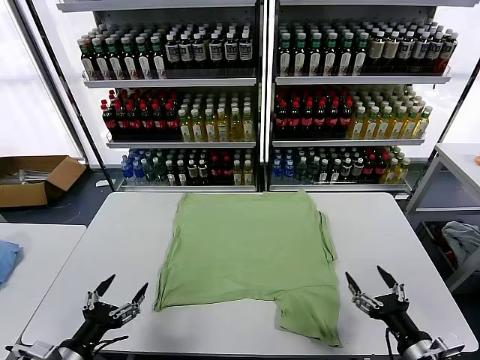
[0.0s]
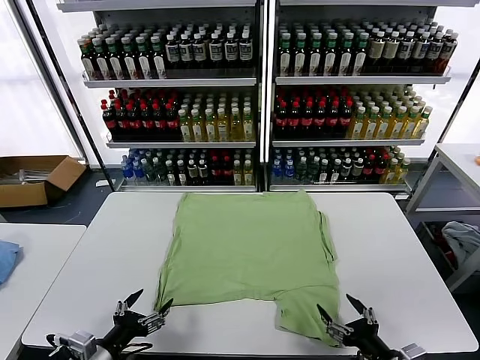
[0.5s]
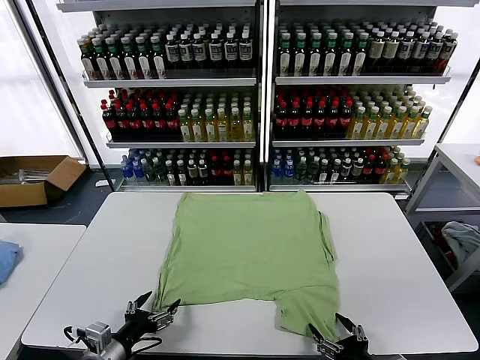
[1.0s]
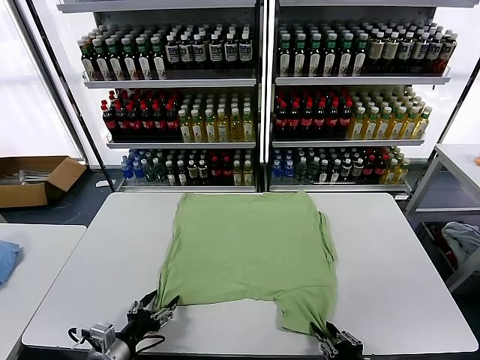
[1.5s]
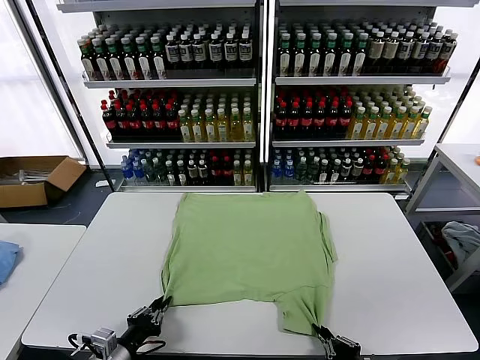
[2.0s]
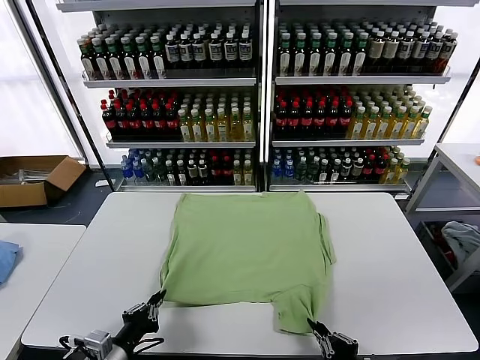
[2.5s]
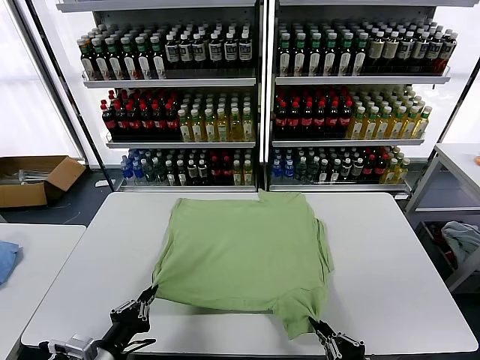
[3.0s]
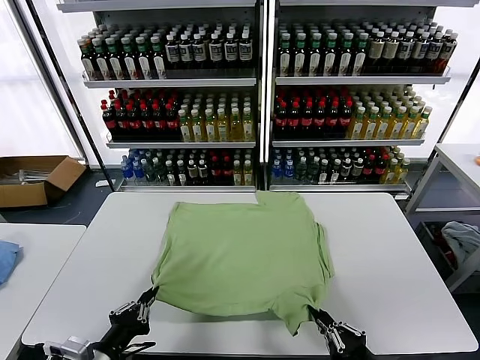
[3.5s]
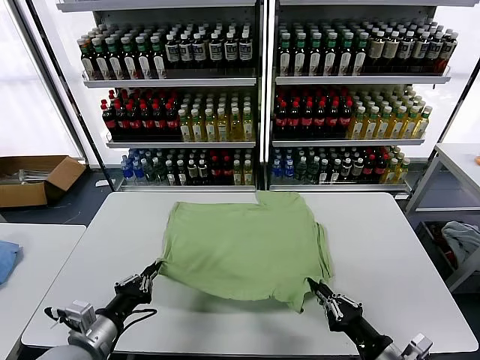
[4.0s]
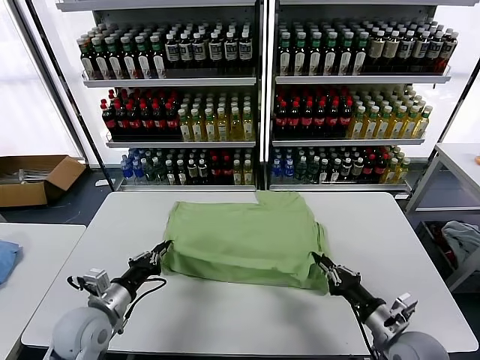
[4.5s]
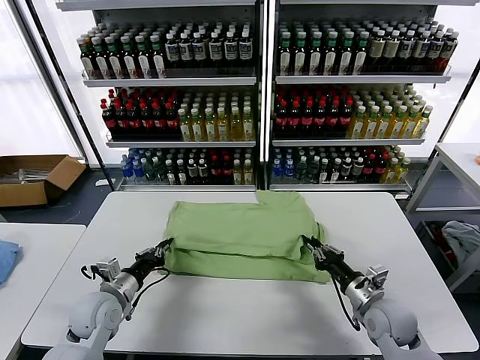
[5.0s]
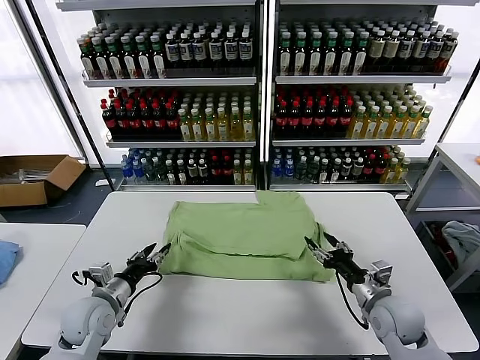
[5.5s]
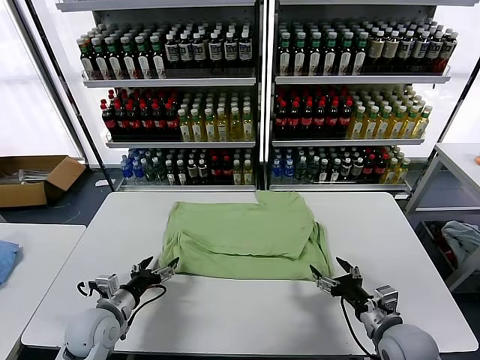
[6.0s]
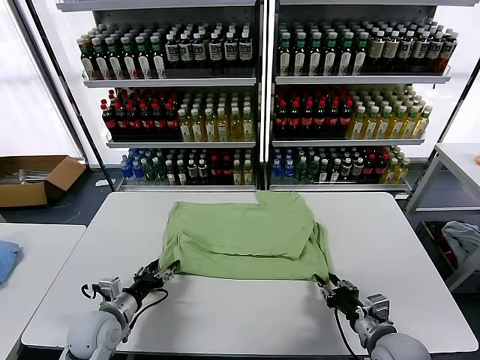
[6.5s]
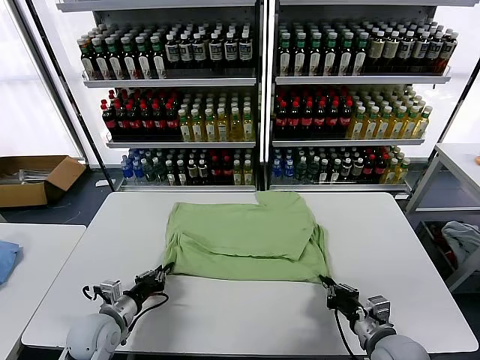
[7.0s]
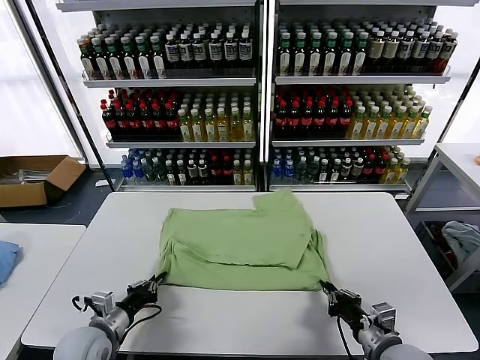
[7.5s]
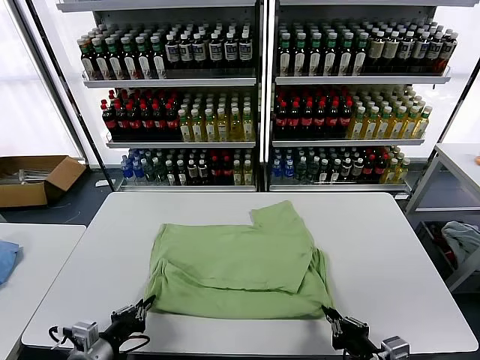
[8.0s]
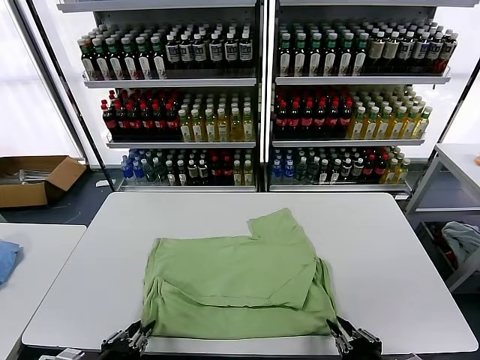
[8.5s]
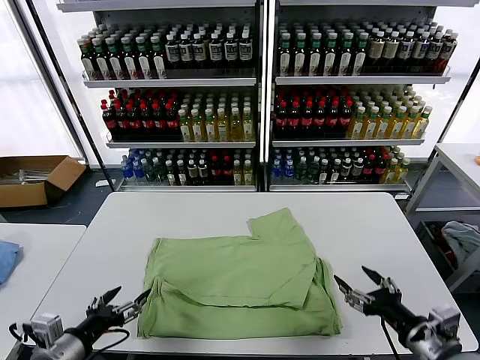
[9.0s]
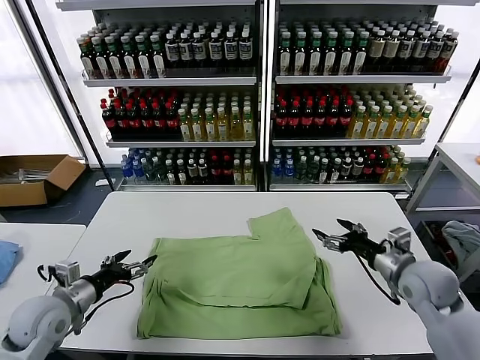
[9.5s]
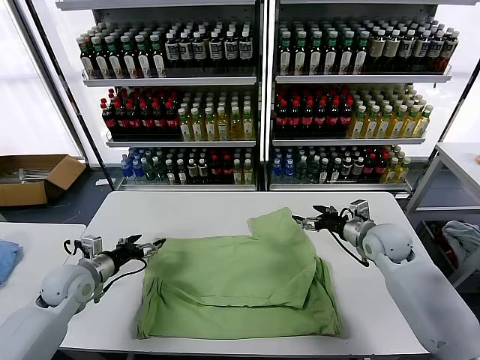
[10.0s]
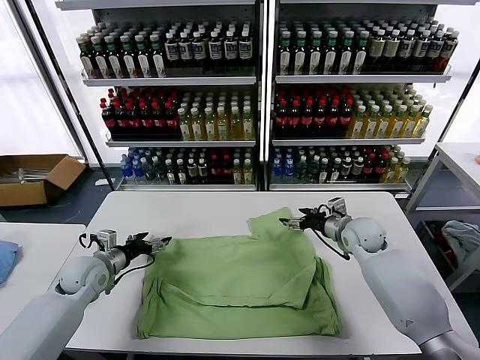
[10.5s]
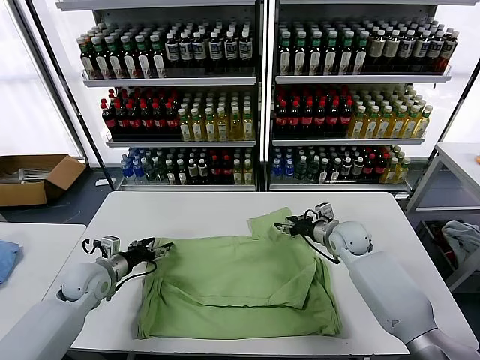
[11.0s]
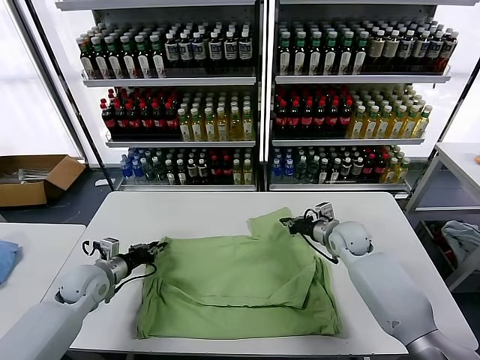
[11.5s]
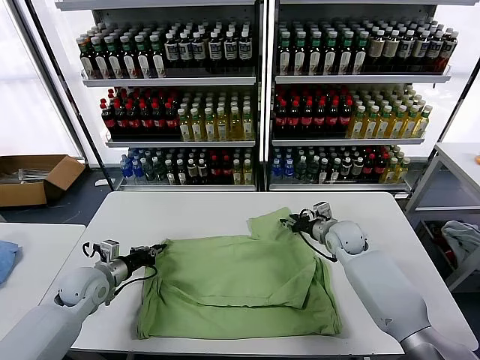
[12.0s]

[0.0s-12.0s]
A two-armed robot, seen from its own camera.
Task of the whole recording: fold and organize the clothes.
Step, 0.0s to 2.0s: use both grippers simultaneously to clamp the lower edge of the clothing fabric.
Step, 2.5s to 5.5s: use both grippers to drag the lower edge of the fabric forward and fold it over the upper edge.
Step, 6.0s to 8.5s: Drag the clothes downward with both gripper.
2.0s to 4.0s: The right gripper shifts about 5 cm forward. The left gripper heads upward, covering roughly 10 cm.
4.0s to 6.0s: The right gripper travels forward by roughly 5 cm, and opens up. The left gripper is displaced forward and downward by about 10 cm, and opens up.
6.0s to 8.0s: Both grippers travel together backward, about 10 cm. The left gripper closes. Meanwhile the right gripper closes its fingers.
8.0s to 10.0s: The left gripper shifts approximately 20 cm forward, and opens its fingers. The right gripper heads forward, covering approximately 35 cm, and opens.
10.0s to 12.0s: The left gripper closes its fingers, while the right gripper travels to the left by roughly 5 cm, and closes its fingers.

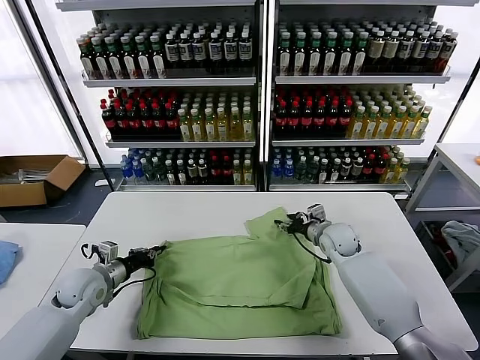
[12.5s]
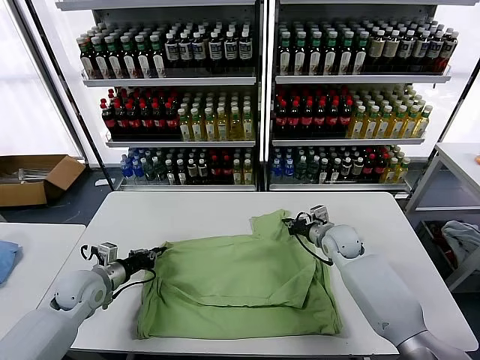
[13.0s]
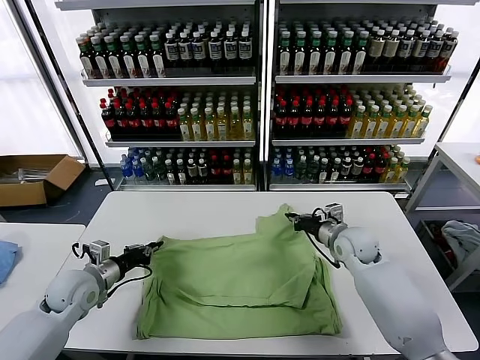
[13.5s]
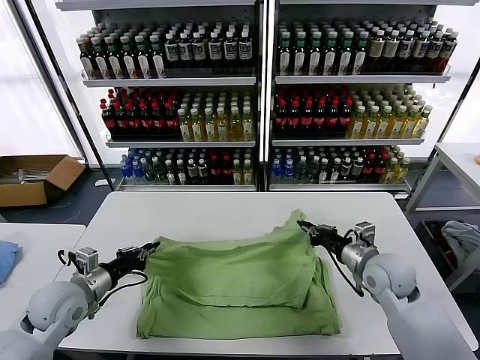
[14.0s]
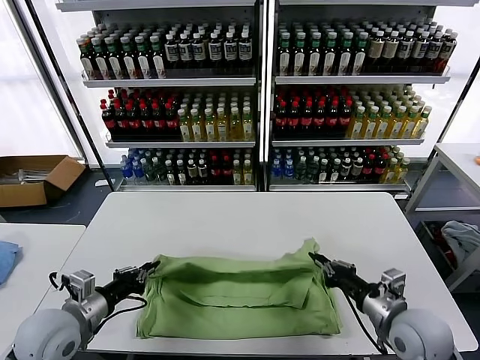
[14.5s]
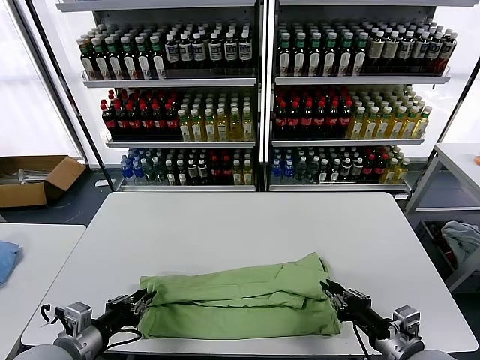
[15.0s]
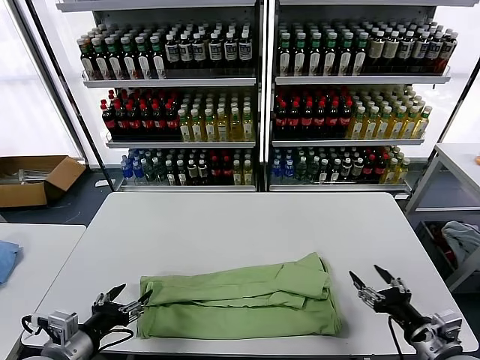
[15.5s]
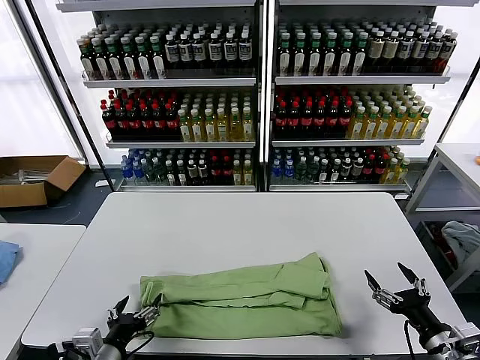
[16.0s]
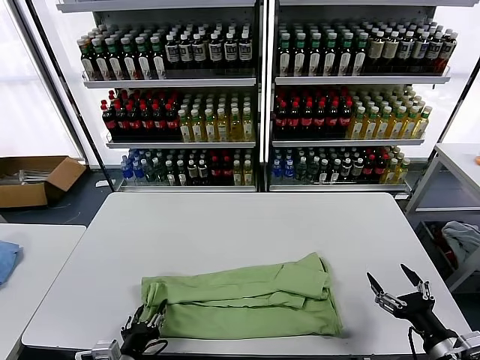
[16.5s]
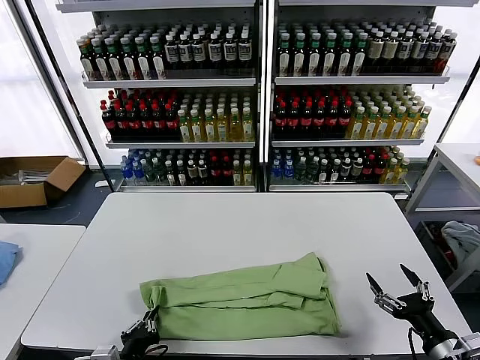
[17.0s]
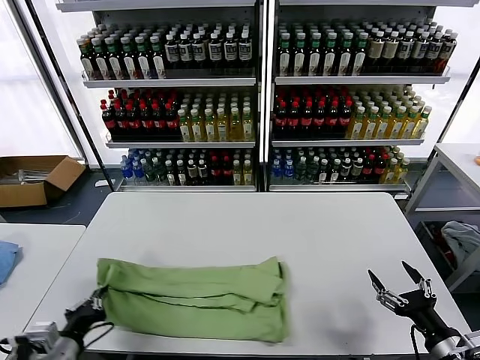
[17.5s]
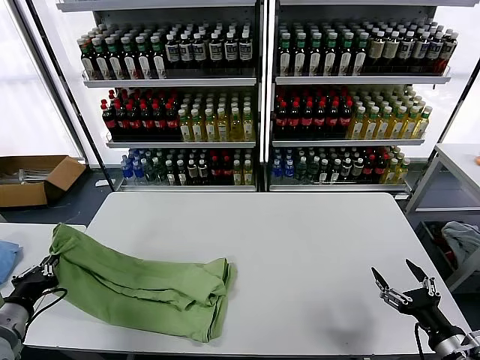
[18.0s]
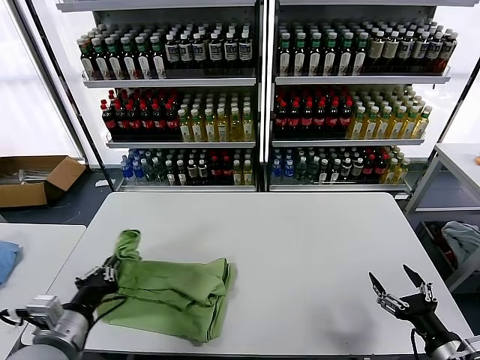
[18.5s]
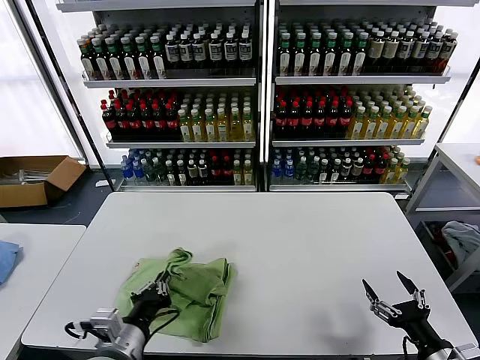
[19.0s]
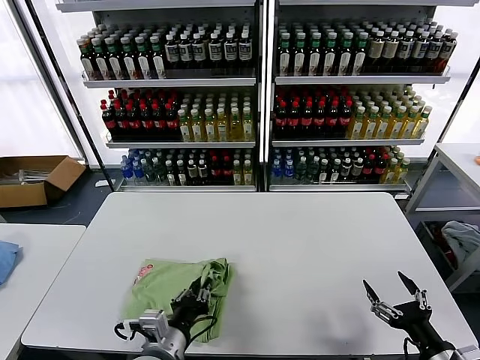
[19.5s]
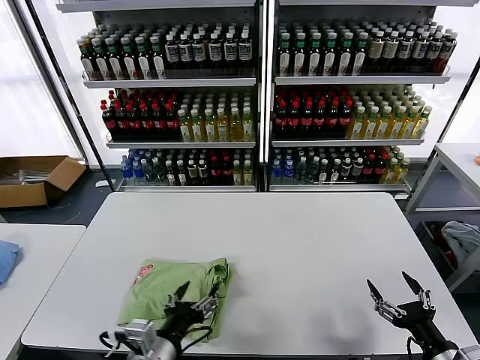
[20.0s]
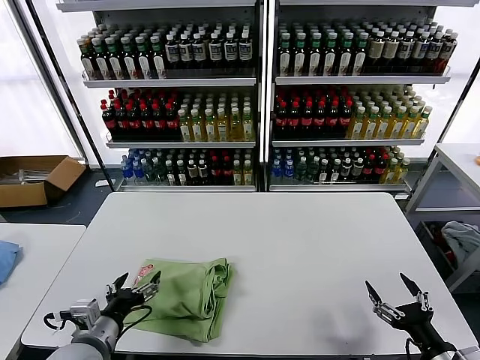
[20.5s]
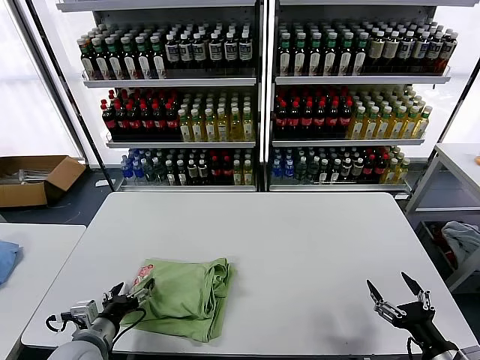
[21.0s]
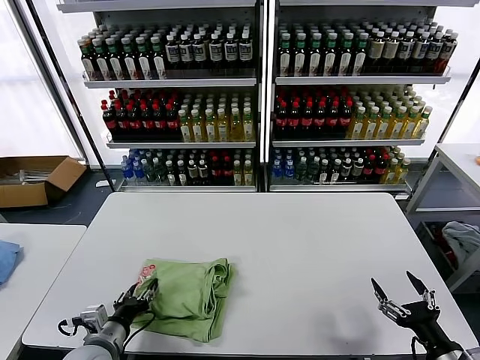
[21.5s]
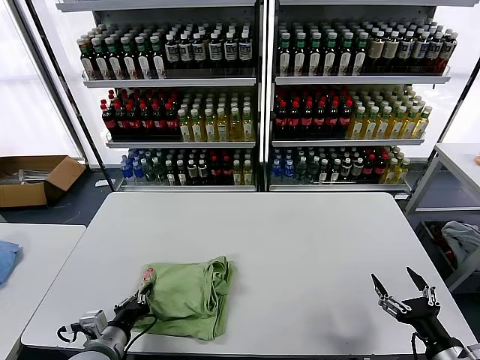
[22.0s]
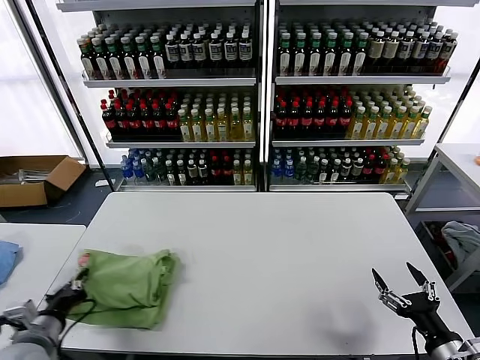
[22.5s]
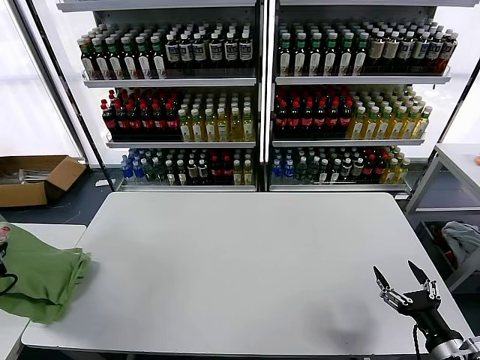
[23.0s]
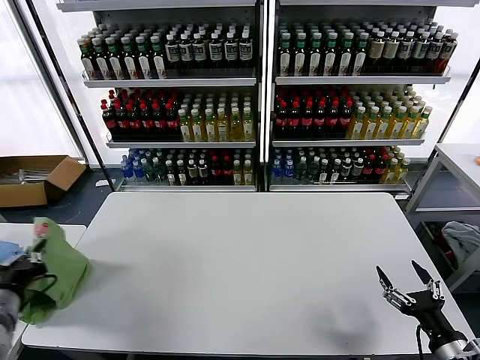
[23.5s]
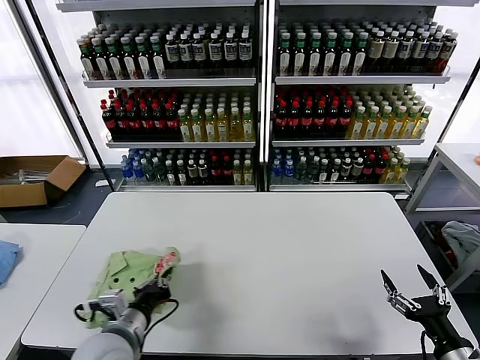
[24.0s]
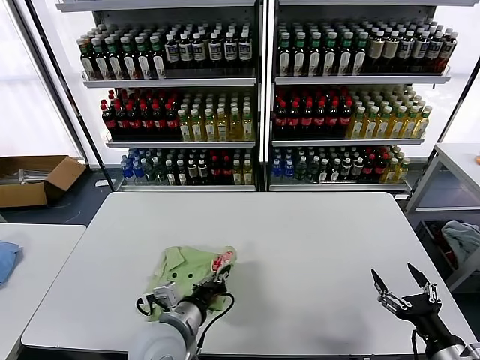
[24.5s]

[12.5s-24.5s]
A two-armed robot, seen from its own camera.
Task of the whole recording: fold and organize the clothes.
Step, 13.5s to 15.0s: use both grippers to drag the upper edge of the fabric backward and fold it over the lower edge.
Step, 15.5s to 16.5s: use the left gripper to clamp the left edge of the fabric.
Step, 17.5s to 19.5s: use the left gripper to drag the left edge of the fabric to the left and folds it over the right edge.
12.5s to 14.5s: The left gripper is displaced backward and upward by about 15 cm; the right gripper shifts roughly 25 cm backward, and closes its fingers.
14.5s to 16.5s: The left gripper shifts approximately 15 cm backward, to the right and downward, and opens. Meanwhile the right gripper travels backward and to the right by roughly 10 cm, and opens its fingers.
16.5s to 18.5s: The left gripper heads upward and to the left, covering about 15 cm, and closes its fingers.
18.5s to 20.5s: The left gripper travels downward by roughly 5 cm, reaches approximately 15 cm to the right, then returns, and opens its fingers.
20.5s to 22.5s: The left gripper heads to the left, covering roughly 10 cm, and closes its fingers.
22.5s to 24.5s: The left gripper moves to the right, about 25 cm.

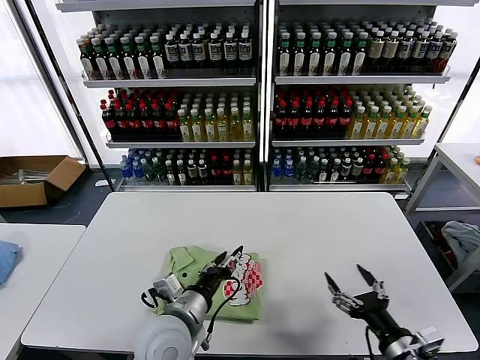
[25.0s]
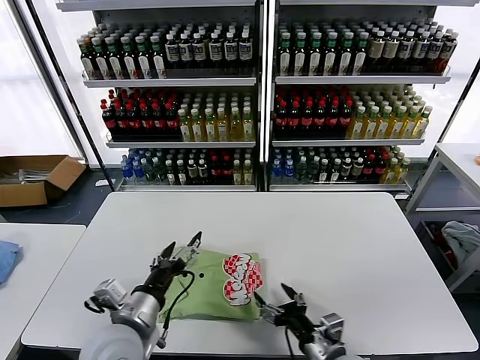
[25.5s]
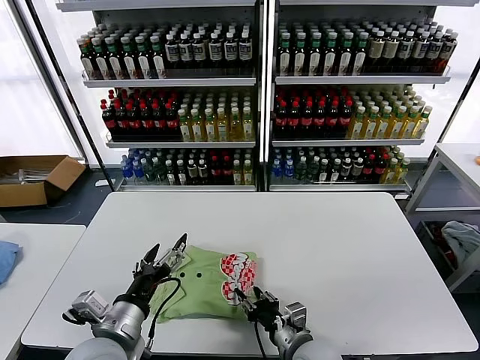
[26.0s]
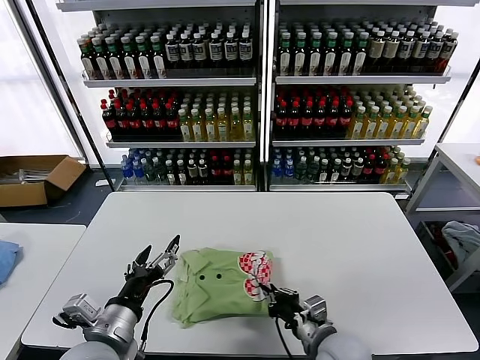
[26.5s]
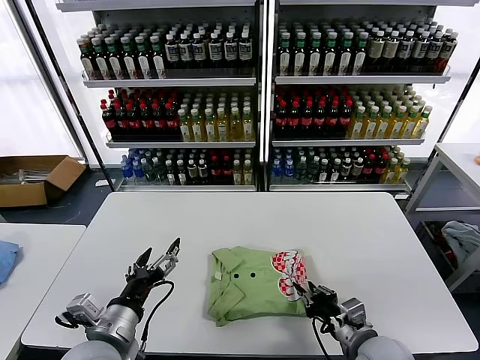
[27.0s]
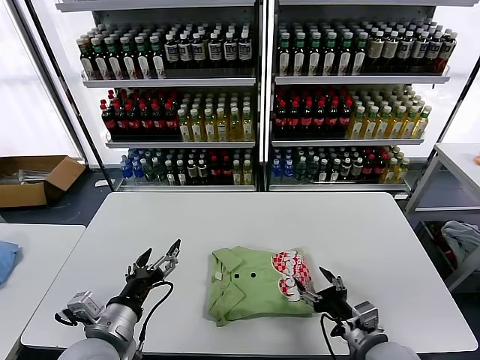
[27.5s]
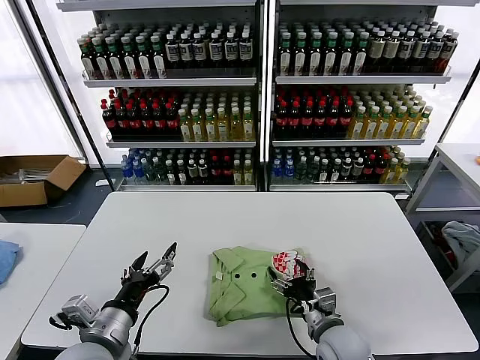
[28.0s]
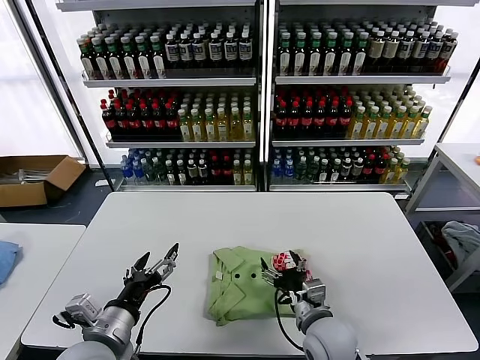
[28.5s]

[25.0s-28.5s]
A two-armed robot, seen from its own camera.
Task of the whole recording: fold and organize the clothes.
25.0s to 27.0s: The left gripper goes roughly 10 cm to the left and backward, and opens up. Meanwhile the right gripper moves forward and to the left, about 10 cm, and closes up.
27.0s to 28.5s: The right gripper is displaced to the left by about 10 cm, and opens up.
